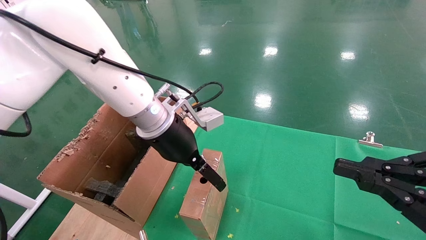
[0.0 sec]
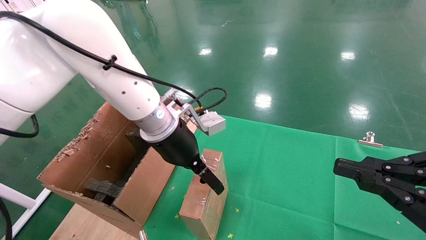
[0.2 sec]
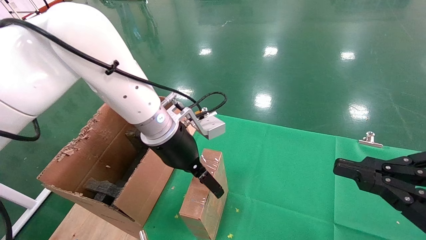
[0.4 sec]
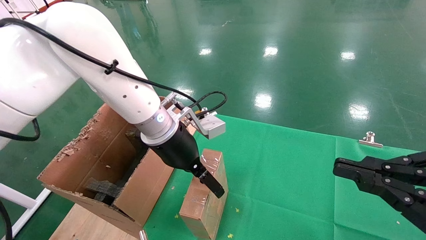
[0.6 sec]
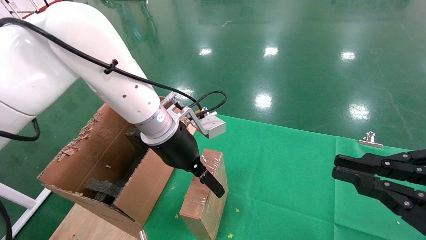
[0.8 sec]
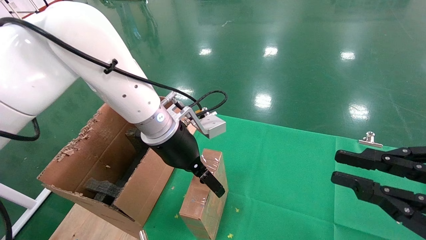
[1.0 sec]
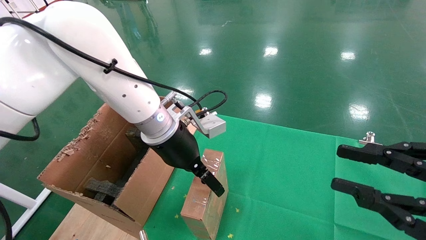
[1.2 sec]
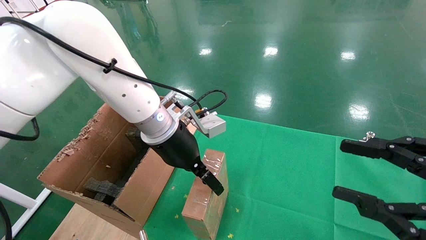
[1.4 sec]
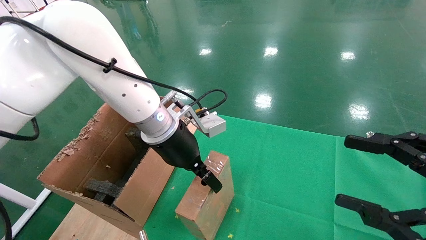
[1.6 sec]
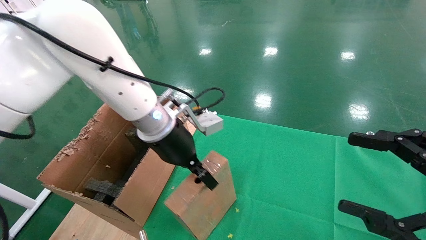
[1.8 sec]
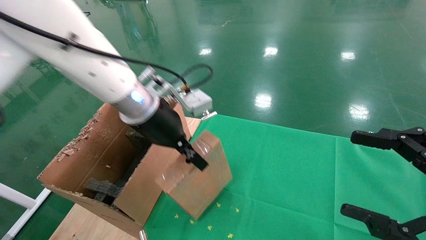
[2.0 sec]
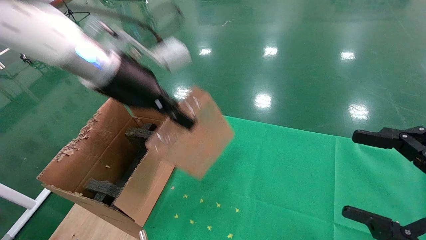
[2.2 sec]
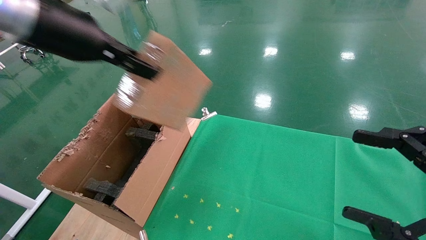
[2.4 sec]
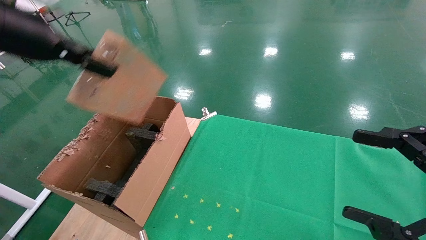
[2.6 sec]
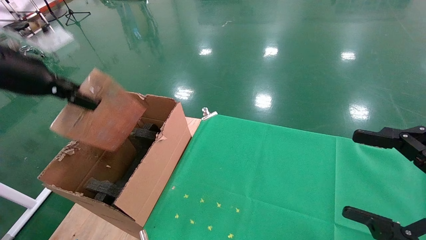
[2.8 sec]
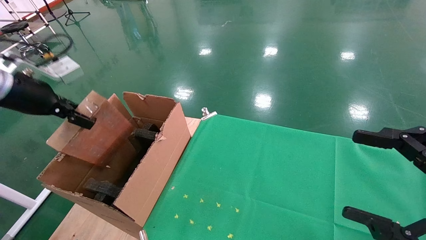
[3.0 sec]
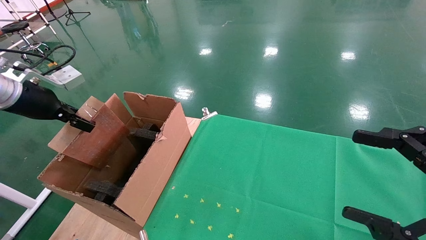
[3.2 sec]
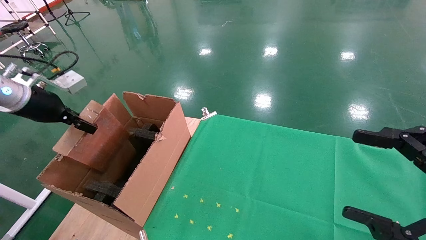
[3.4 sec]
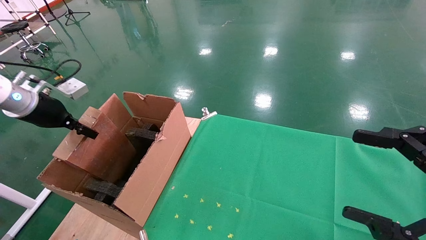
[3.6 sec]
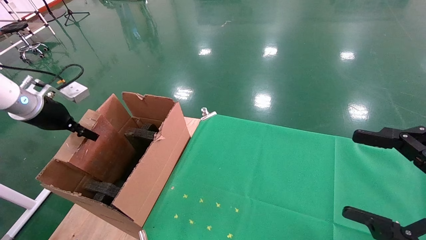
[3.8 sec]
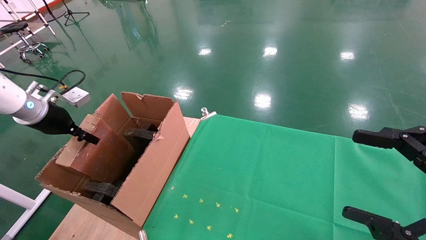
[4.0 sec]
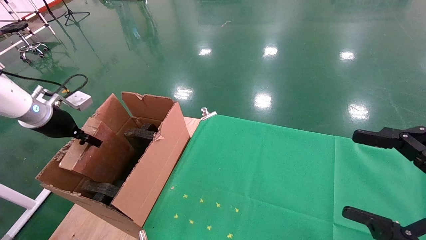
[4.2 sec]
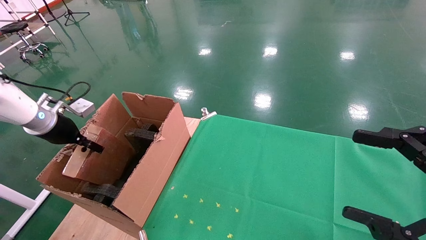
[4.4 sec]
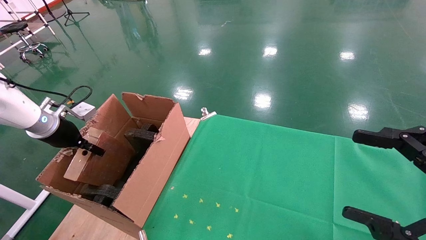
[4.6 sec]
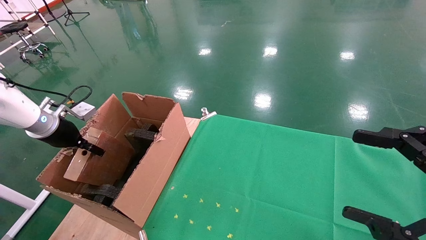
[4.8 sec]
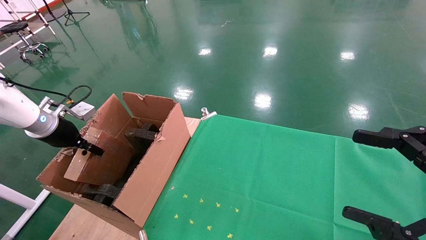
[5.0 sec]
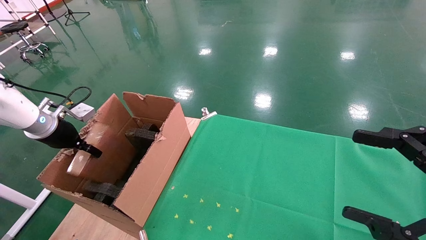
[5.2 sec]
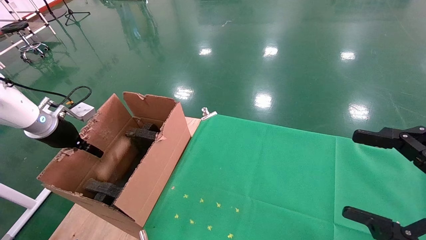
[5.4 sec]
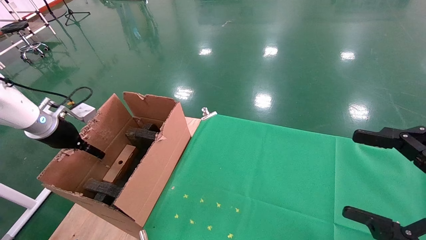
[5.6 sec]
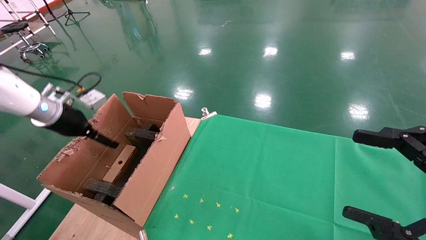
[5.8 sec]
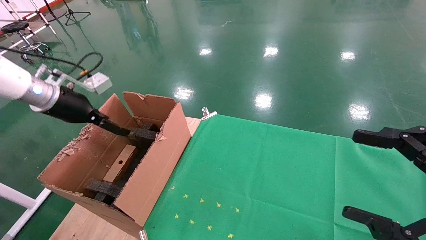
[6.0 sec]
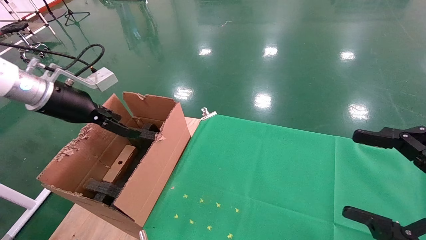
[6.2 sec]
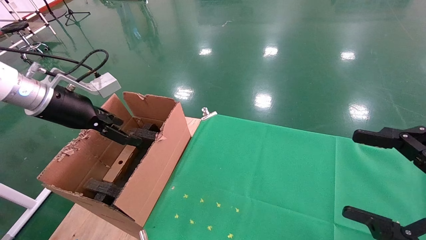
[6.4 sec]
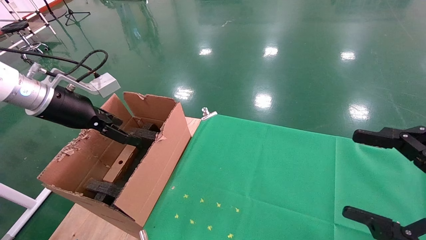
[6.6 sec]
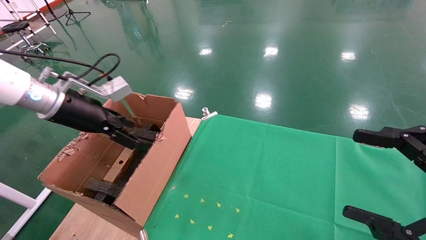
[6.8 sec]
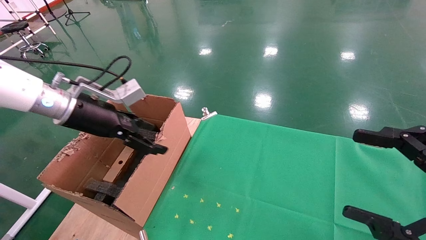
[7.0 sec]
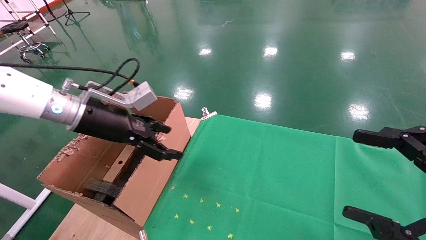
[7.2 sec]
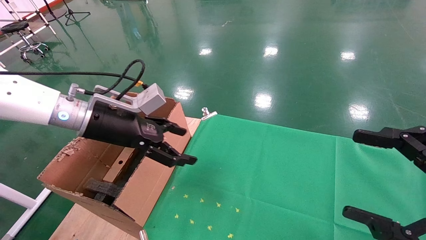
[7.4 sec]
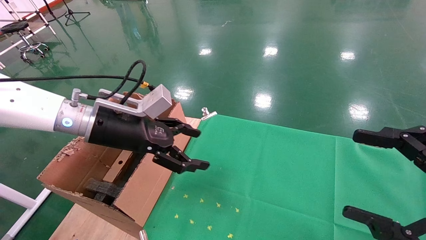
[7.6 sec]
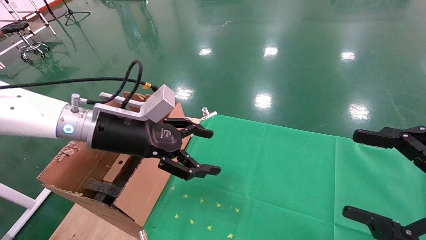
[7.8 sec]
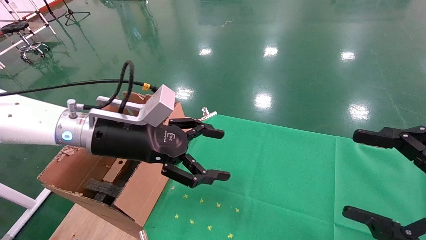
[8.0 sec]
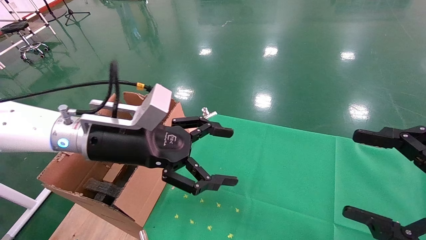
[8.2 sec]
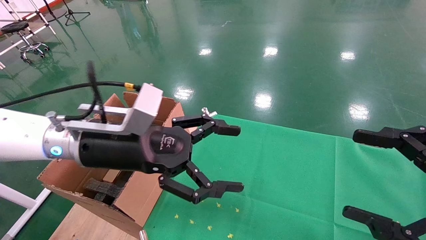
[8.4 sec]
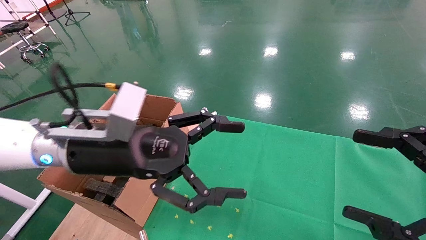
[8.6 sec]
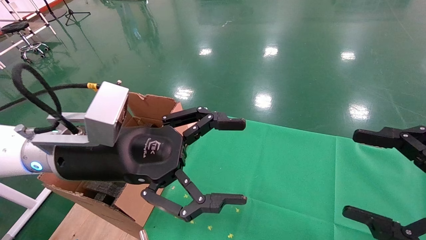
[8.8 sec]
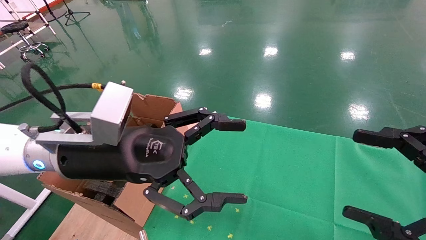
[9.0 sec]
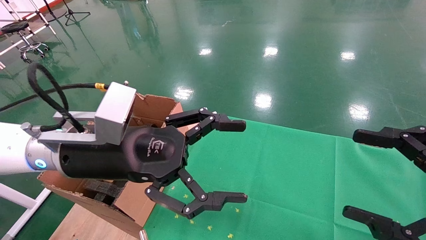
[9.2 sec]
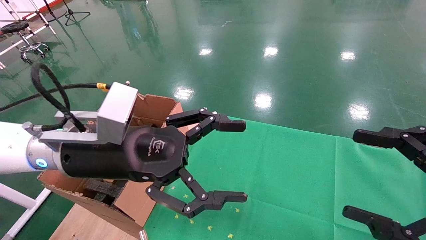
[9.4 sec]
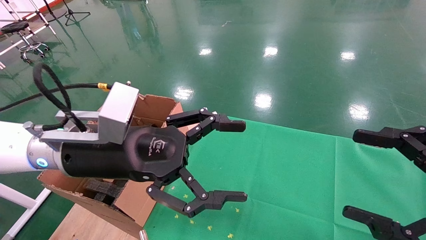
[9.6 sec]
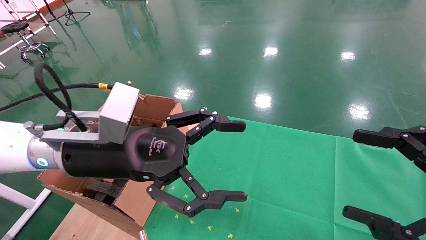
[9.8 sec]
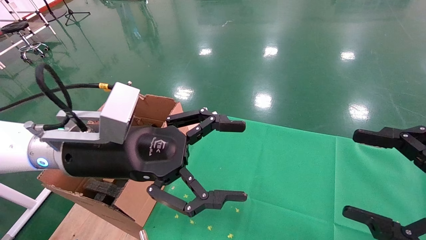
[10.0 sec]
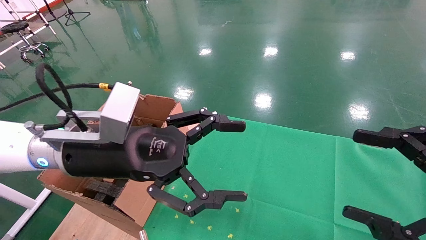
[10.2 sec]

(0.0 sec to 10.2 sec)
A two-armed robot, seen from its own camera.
Task of the whole recording: using a robotic arm to pick up a cardboard box and palace it the carton.
Step, 1.8 sec - 5.2 sec: Place the mouse and the power cord paper box into the container.
0.0 sec - 1.4 sec: The right gripper opens.
1.4 sec - 3.0 sec: The right gripper opens its fingers; the left gripper moves to the left, roughly 30 cm, and closes up.
3.0 sec - 4.4 sec: The left gripper is displaced downward, forward and to the left by approximately 15 cm.
4.4 sec - 5.8 sec: The left gripper moves about 5 cm, and opens up.
5.8 sec - 7.2 sec: The left gripper shifts some 15 cm to the right.
7.2 sec - 8.8 sec: The left gripper is displaced backward and to the right by approximately 15 cm.
8.8 sec - 10.2 sec: The two grippers keep their place.

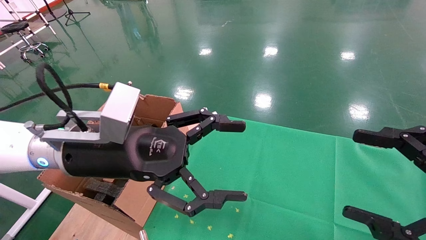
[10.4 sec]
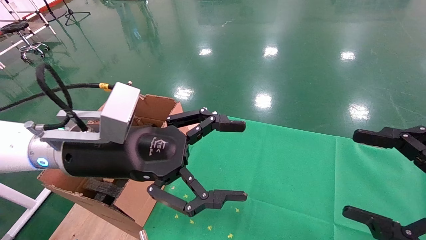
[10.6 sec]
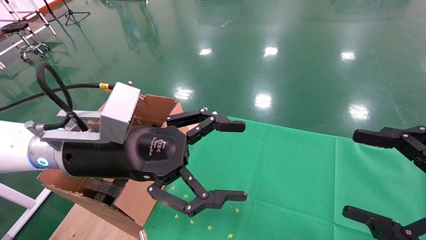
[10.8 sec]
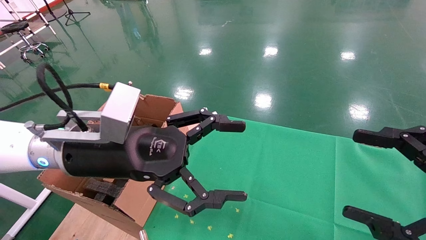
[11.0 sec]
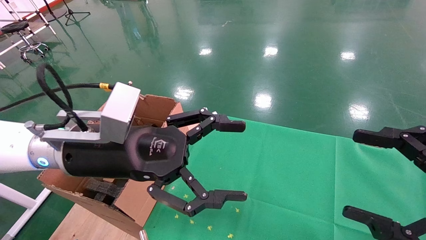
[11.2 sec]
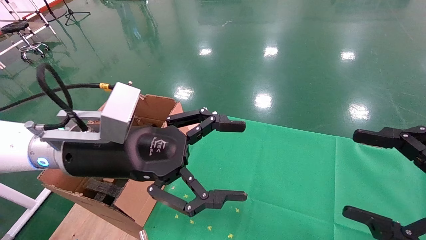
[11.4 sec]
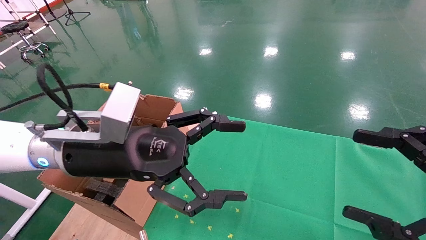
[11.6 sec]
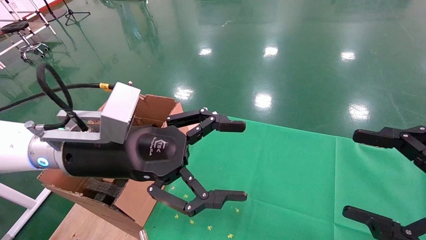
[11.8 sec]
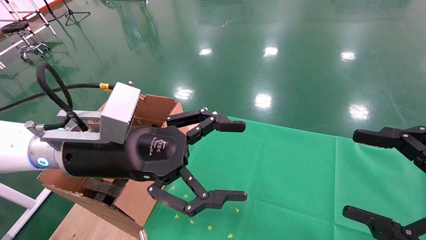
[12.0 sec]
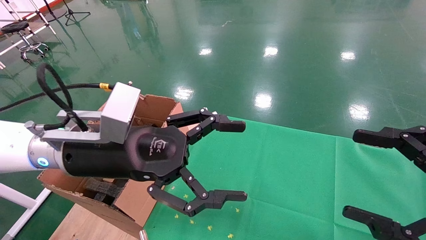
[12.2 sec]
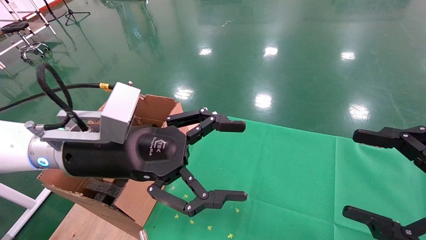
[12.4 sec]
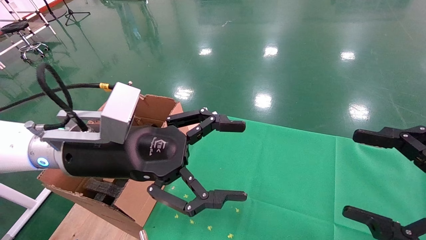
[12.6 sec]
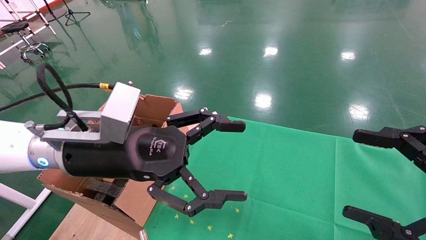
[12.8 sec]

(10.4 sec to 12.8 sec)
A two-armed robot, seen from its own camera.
Task of the whole recording: using a robotic arm to pick up a cardboard box and palace it the carton.
10.4 sec - 12.8 sec: Both grippers stay put.
